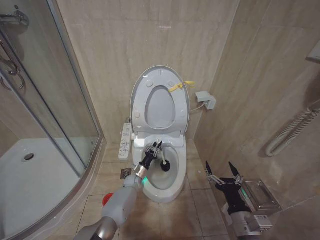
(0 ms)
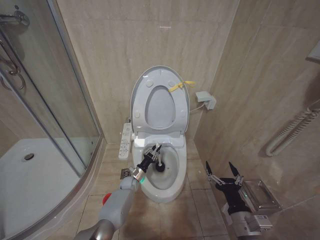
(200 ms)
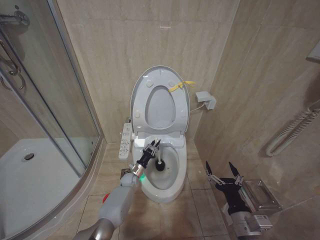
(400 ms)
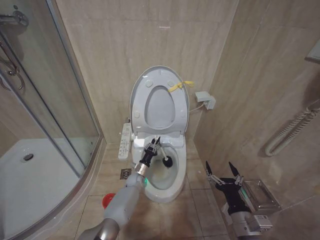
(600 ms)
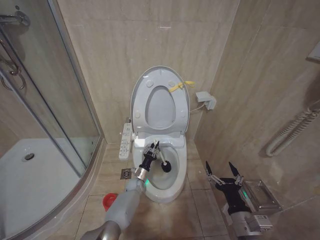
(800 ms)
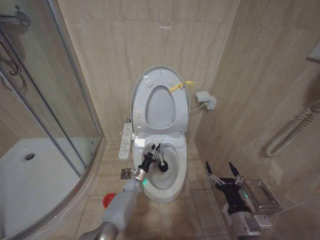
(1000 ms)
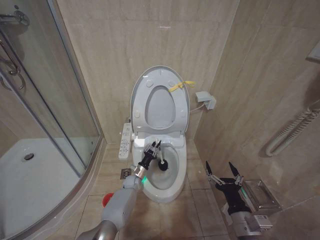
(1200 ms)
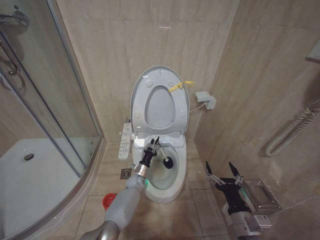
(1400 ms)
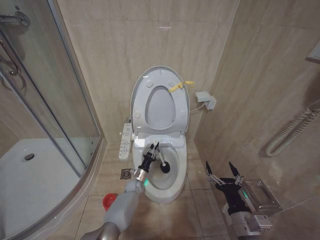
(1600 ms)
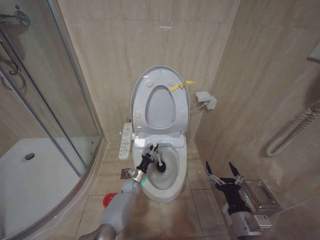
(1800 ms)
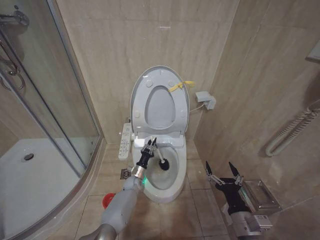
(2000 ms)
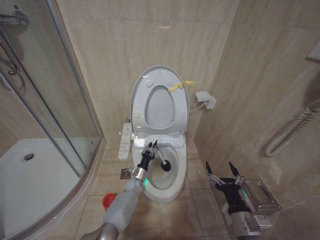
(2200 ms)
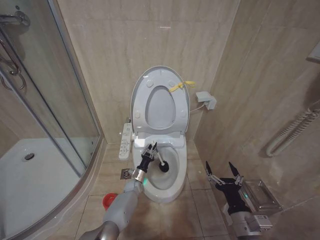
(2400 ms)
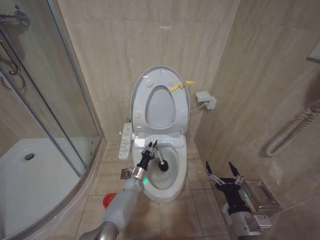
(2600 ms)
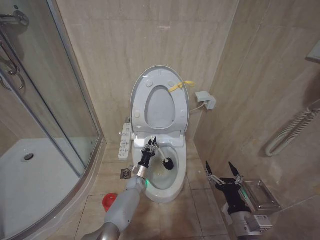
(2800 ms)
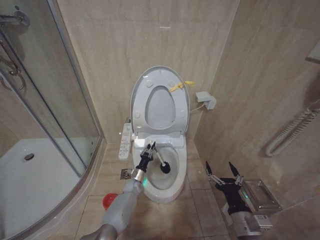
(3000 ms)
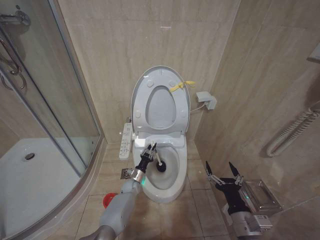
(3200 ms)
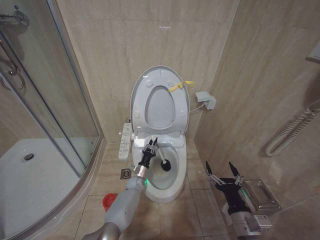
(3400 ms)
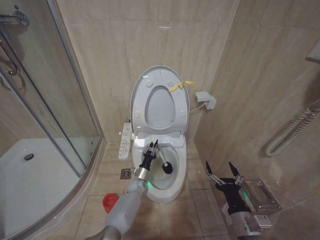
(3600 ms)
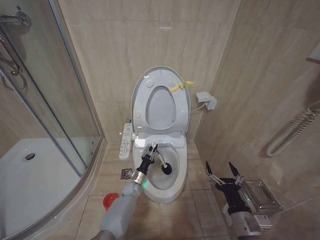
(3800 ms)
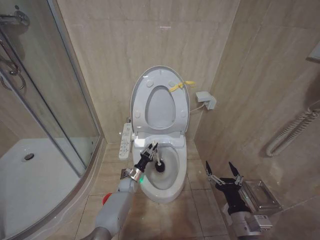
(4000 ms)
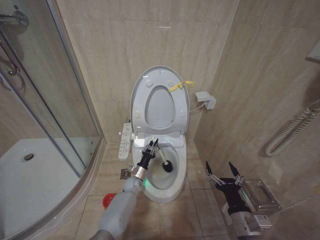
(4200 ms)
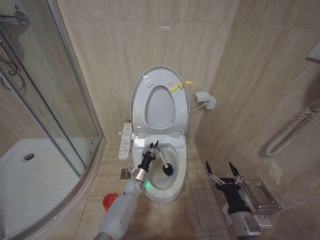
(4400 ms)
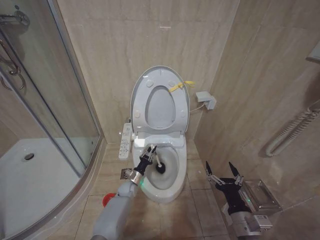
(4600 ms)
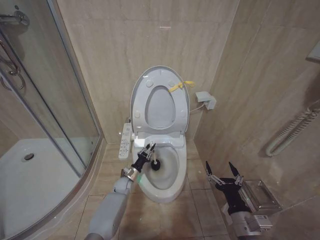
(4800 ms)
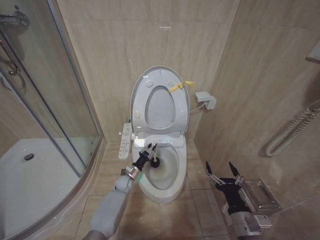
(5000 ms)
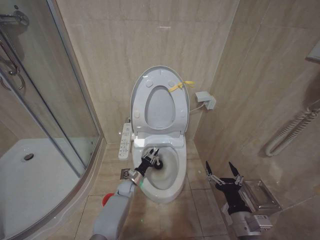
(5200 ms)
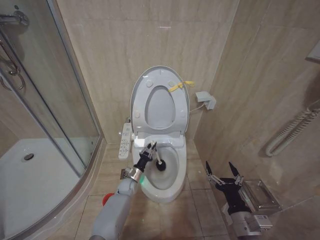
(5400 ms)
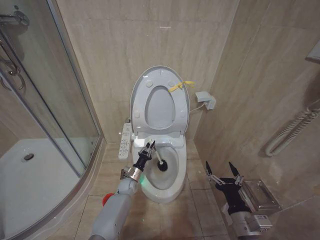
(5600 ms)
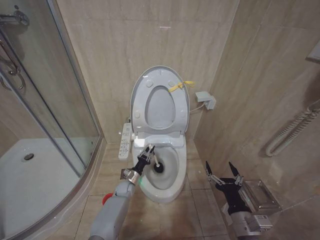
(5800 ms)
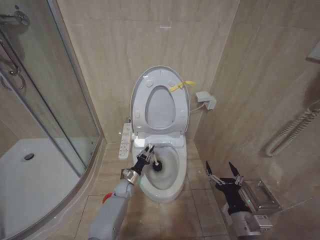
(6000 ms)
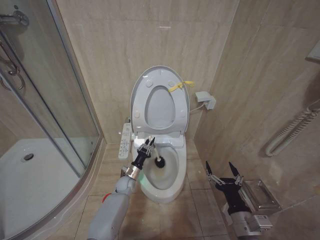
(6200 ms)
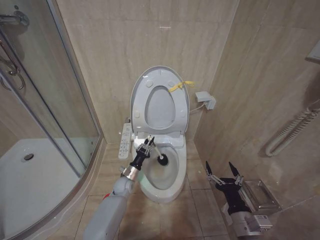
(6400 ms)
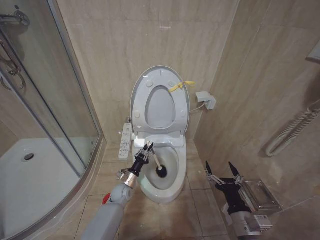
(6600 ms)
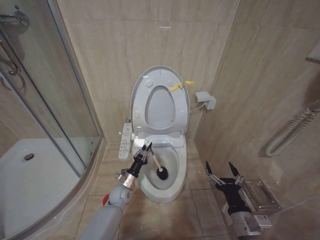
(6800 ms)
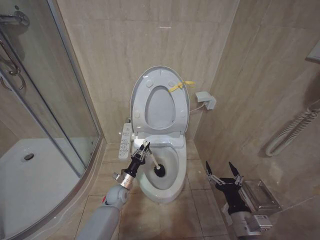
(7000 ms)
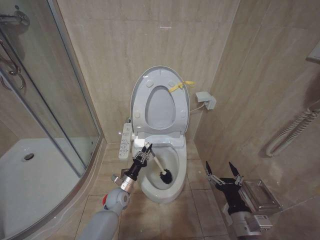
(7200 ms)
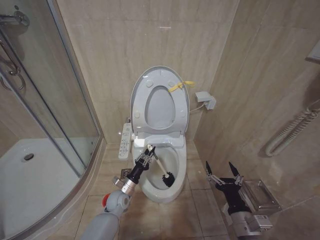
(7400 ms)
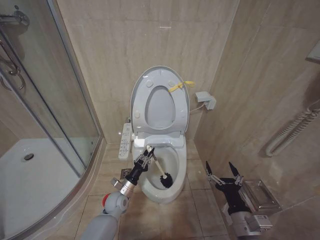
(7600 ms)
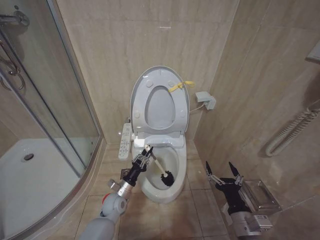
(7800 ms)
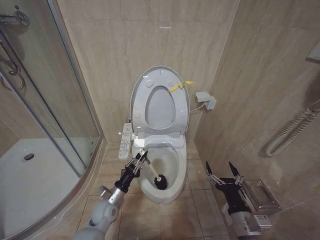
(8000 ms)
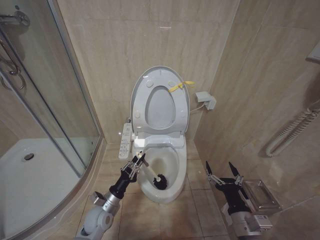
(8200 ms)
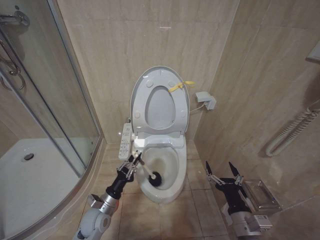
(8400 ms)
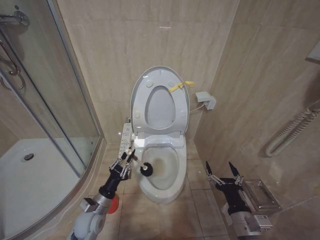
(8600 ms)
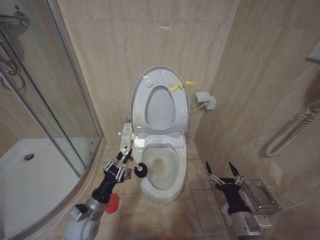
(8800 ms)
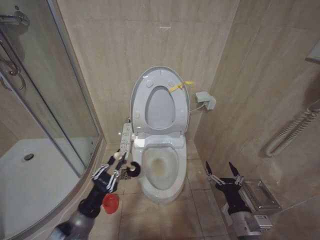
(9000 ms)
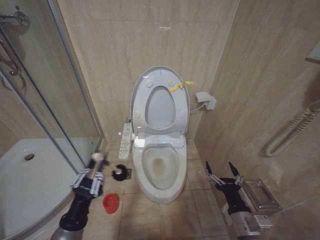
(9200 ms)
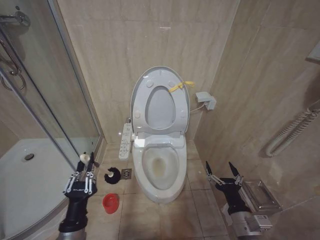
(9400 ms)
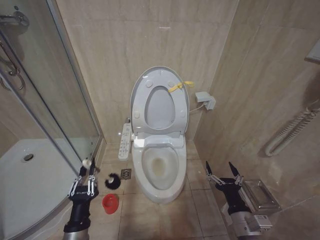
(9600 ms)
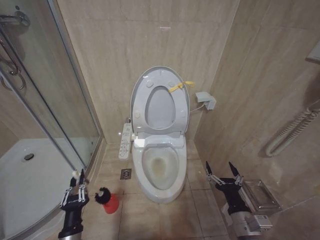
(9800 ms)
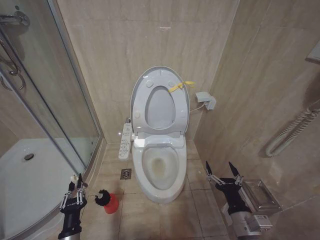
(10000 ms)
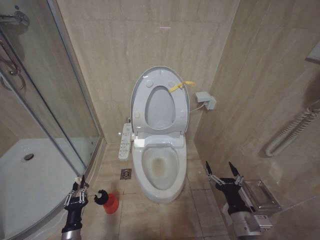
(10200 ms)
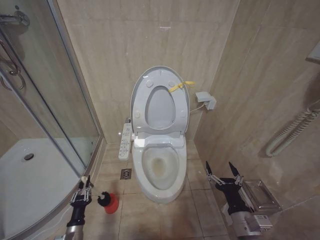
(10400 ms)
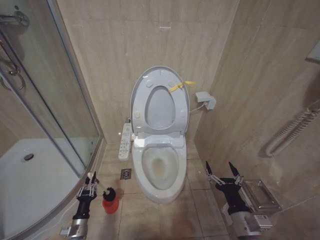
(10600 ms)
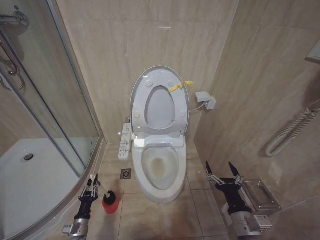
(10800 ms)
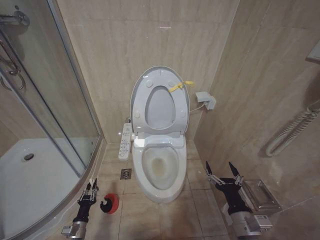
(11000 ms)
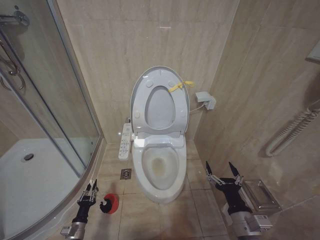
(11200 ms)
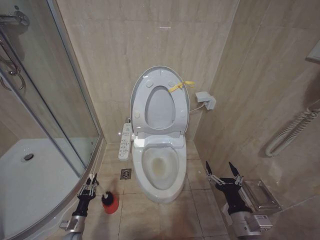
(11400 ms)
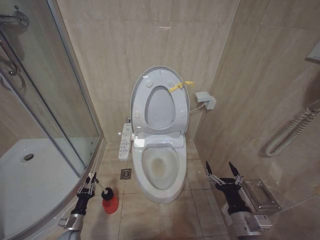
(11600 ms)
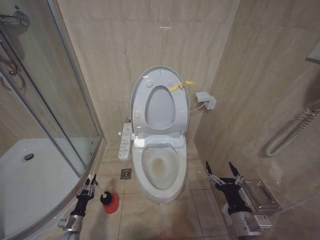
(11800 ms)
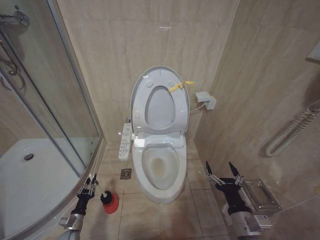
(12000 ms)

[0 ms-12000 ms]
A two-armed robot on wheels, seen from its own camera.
Task of the whole recording: Open the toilet lid, clean the toilet bowl with a toilet brush, close the toilet lid, and flush.
0 ms to 1600 ms: There are only small adjustments of the grippers.
3000 ms to 4400 ms: The grippers move only a little.
4400 ms to 6000 ms: The left gripper travels to the left by some 5 cm.
6000 ms to 7600 ms: The left gripper is displaced backward and upward by some 10 cm.
7600 ms to 9000 ms: The left gripper heads backward, upward and to the left, covering about 20 cm.
9000 ms to 10400 ms: The left gripper is displaced downward and to the left by some 20 cm.
10400 ms to 12000 ms: The left gripper goes some 10 cm forward, downward and to the left.

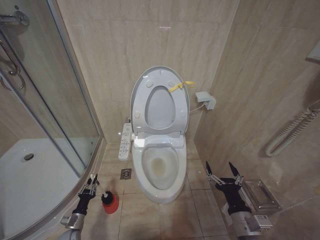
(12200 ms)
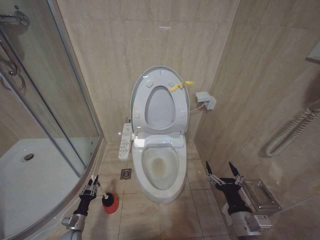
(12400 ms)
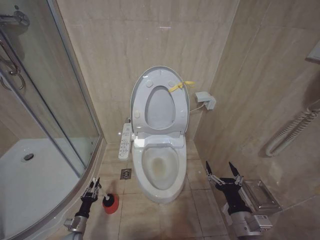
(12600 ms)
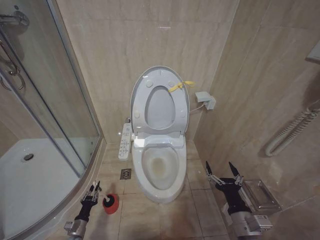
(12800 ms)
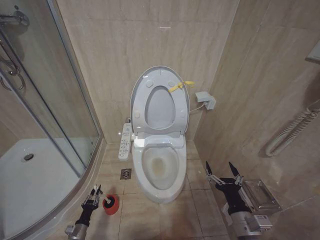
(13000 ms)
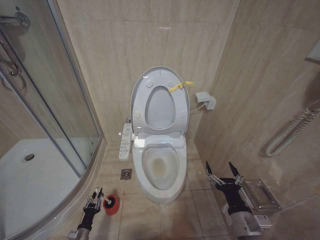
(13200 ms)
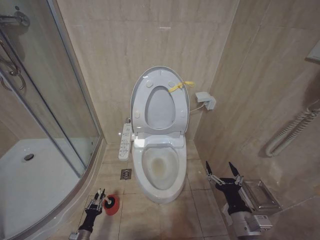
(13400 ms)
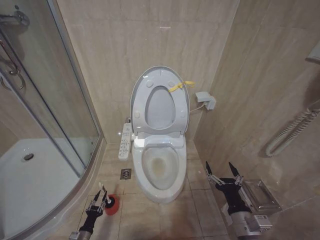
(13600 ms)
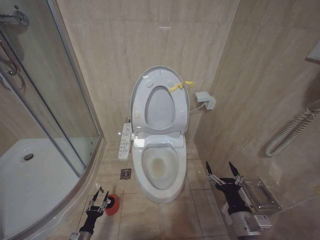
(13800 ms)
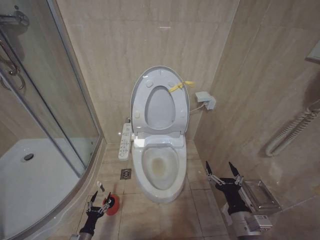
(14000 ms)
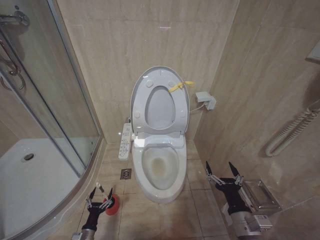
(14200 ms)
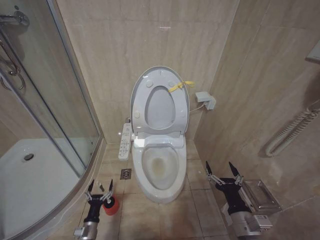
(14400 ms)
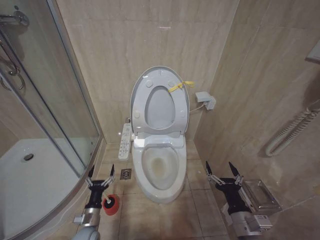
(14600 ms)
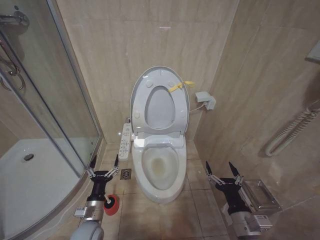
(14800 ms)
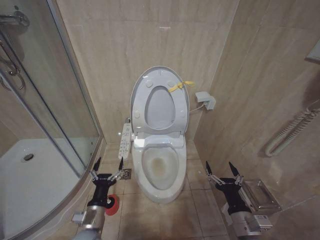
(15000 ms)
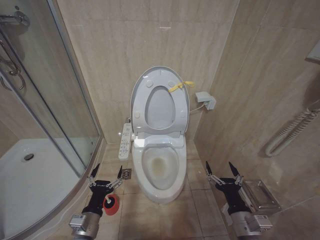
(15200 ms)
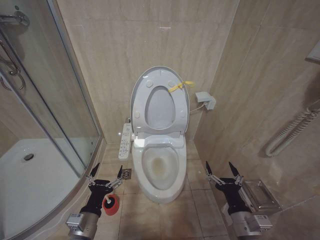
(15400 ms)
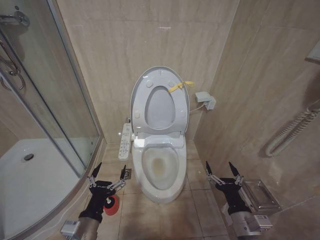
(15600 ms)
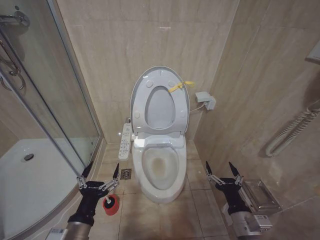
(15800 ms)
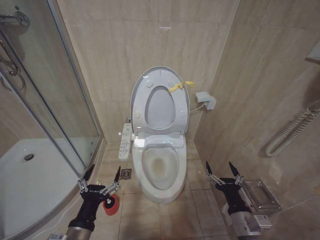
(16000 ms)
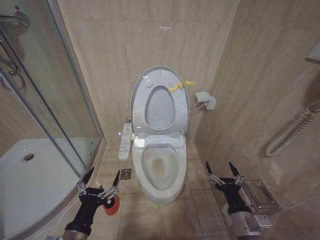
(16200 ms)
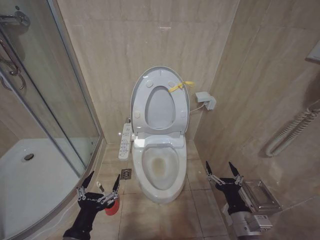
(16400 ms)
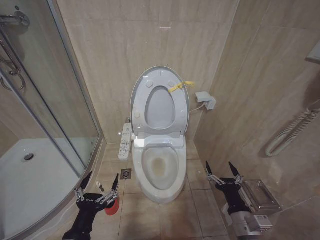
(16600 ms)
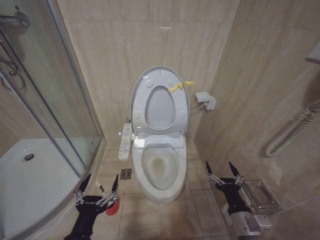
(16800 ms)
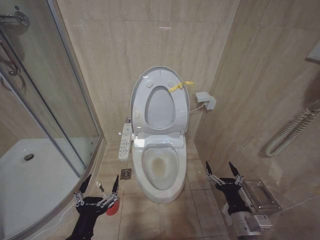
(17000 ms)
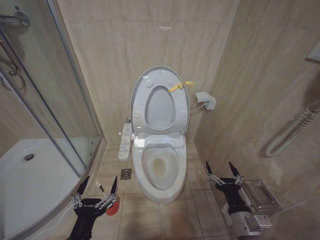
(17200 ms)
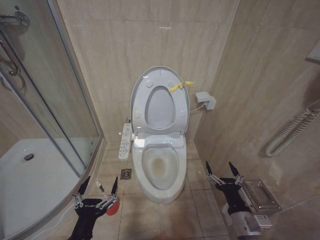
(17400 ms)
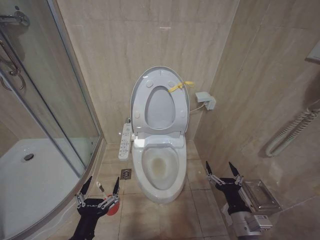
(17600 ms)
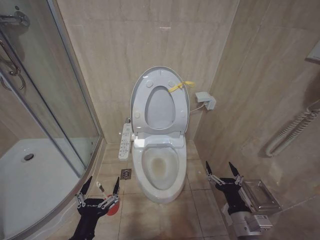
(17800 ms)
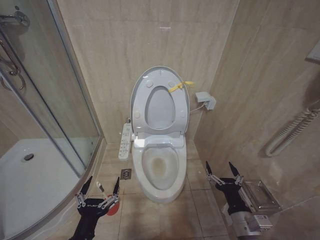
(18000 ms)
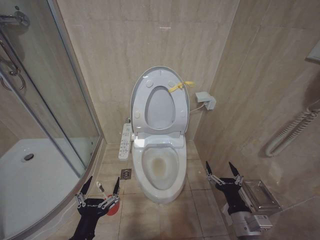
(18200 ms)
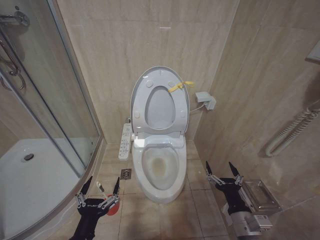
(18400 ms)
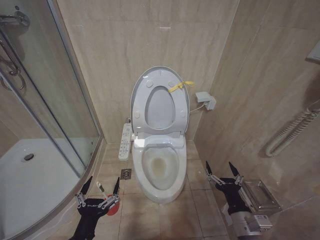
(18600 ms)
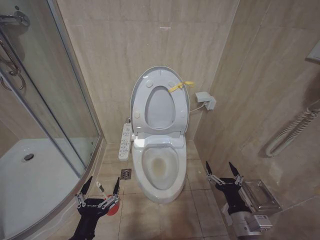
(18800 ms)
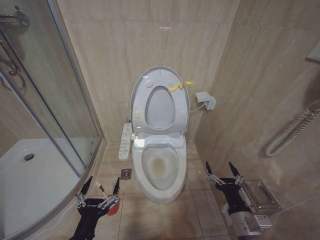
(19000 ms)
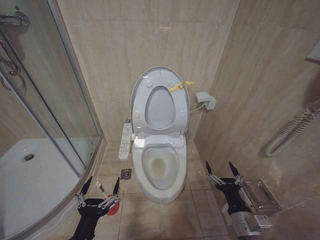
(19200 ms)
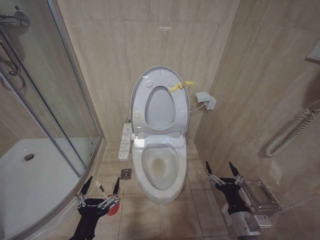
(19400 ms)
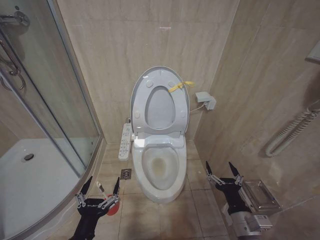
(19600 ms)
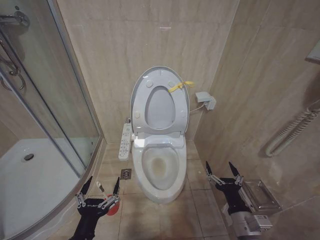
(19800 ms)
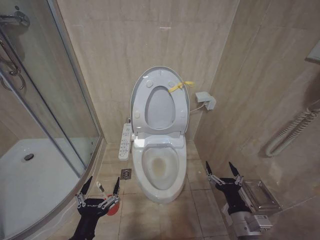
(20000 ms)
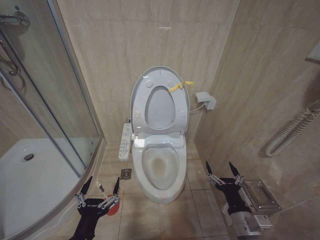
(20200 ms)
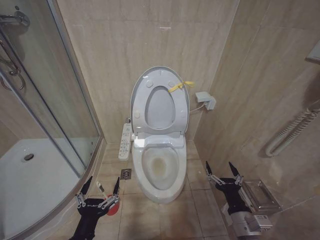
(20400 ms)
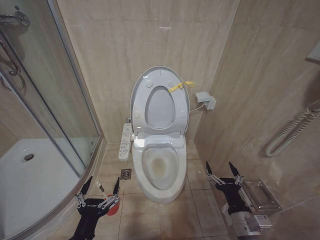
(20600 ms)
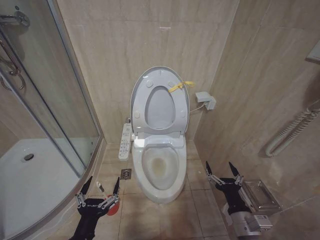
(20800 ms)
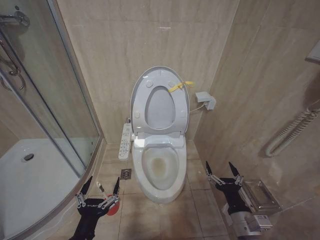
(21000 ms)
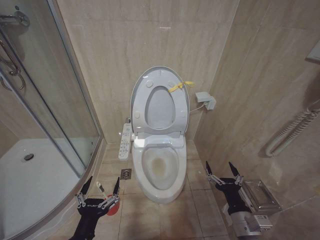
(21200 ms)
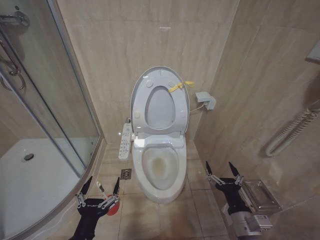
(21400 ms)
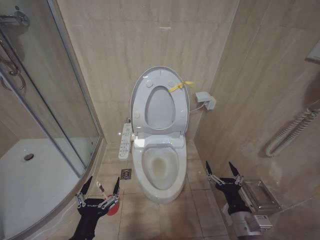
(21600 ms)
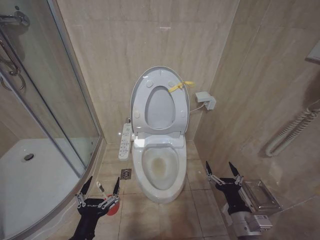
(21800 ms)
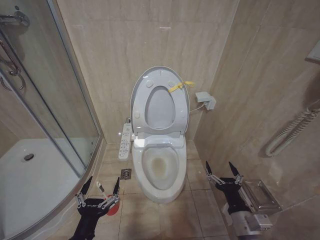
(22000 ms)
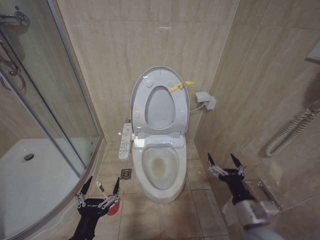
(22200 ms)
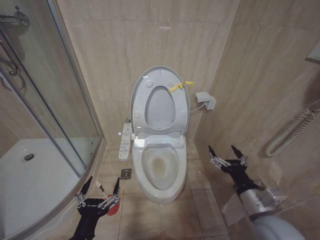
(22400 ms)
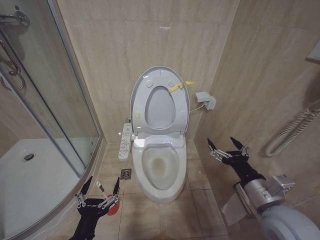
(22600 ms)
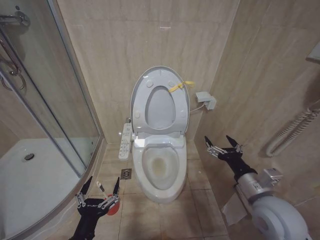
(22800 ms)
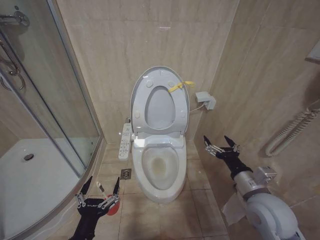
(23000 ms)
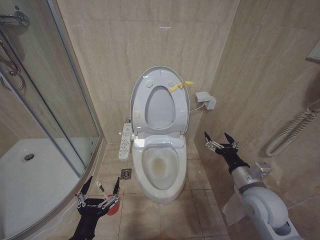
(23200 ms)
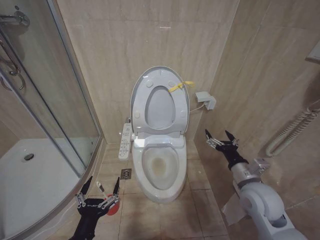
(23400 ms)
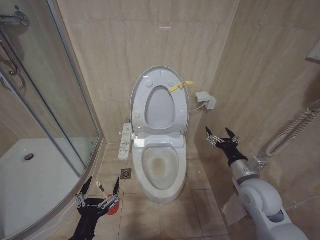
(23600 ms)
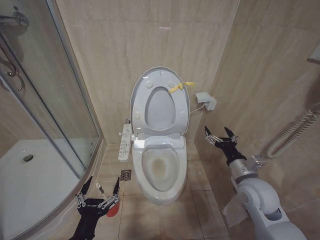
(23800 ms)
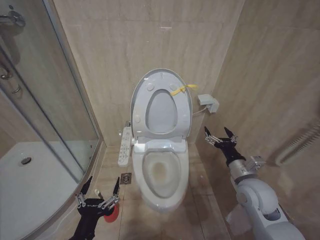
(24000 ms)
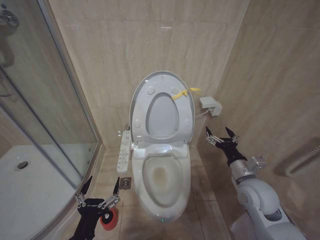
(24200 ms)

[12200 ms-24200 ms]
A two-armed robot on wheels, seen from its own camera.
Task of the whole recording: Open the toilet lid, clean the toilet bowl with a toilet brush, close the toilet lid, and flush.
12200 ms to 13800 ms: The left gripper moves backward, approximately 5 cm.
13800 ms to 15200 ms: The left gripper travels upward and to the right by approximately 30 cm, and opens its fingers.
15200 ms to 16600 ms: The left gripper heads backward and upward, covering roughly 10 cm.
16600 ms to 18200 ms: There are only small adjustments of the grippers.
18200 ms to 21200 ms: Both grippers stay about where they are.
21200 ms to 22600 ms: The right gripper heads upward, covering about 15 cm.
22600 ms to 24200 ms: The right gripper moves forward, approximately 10 cm.
